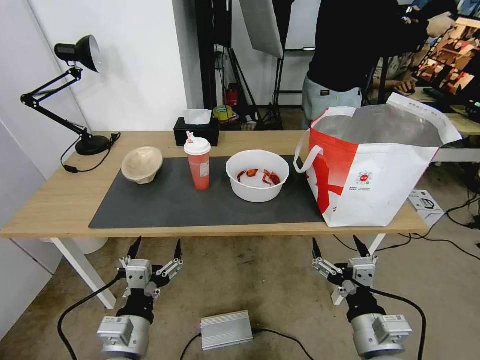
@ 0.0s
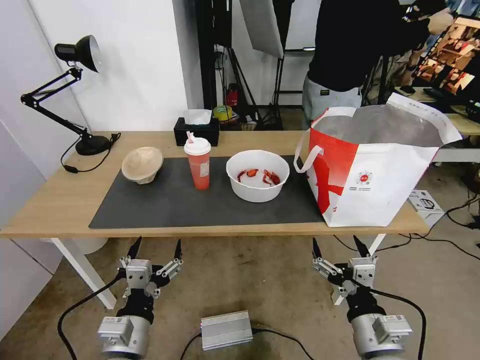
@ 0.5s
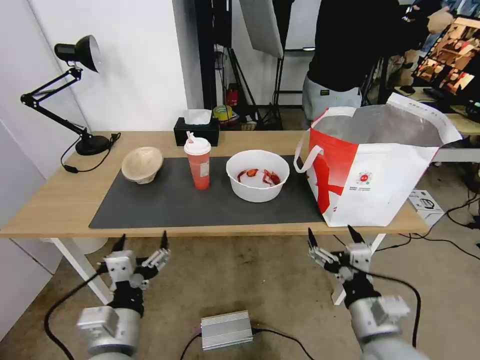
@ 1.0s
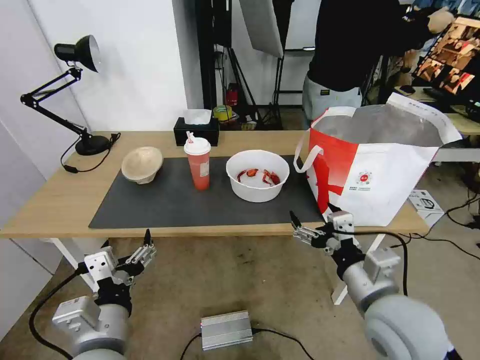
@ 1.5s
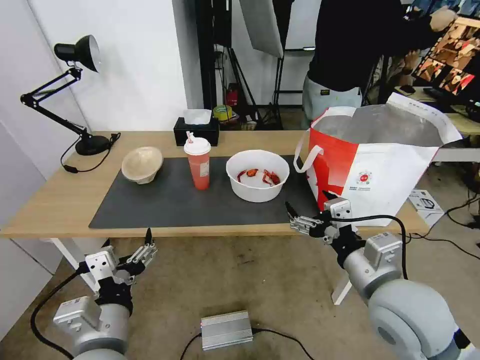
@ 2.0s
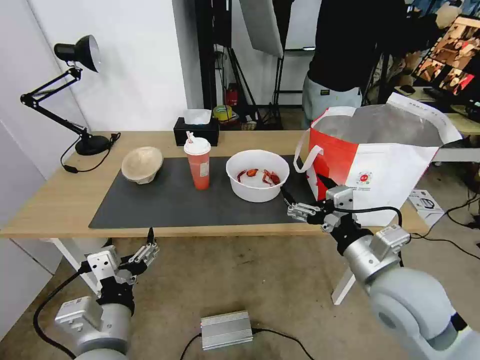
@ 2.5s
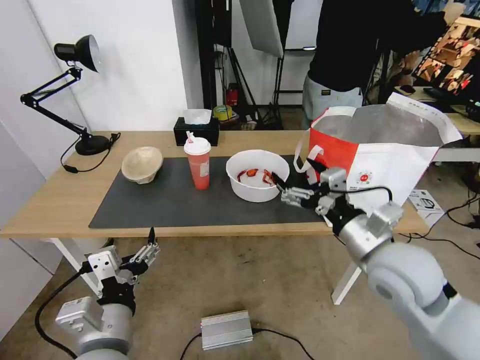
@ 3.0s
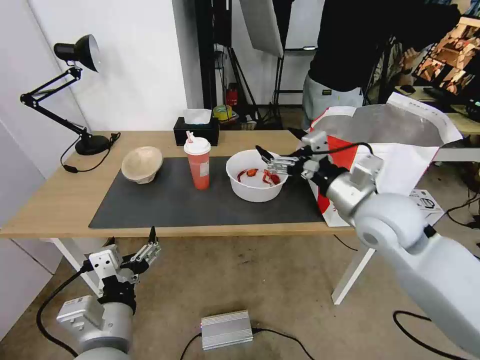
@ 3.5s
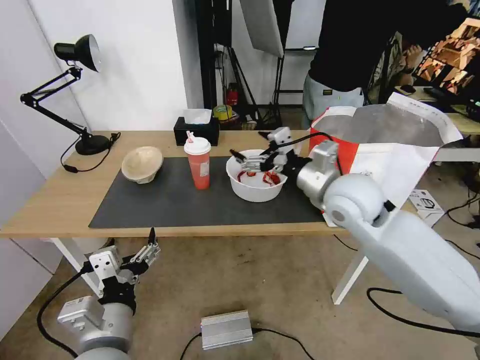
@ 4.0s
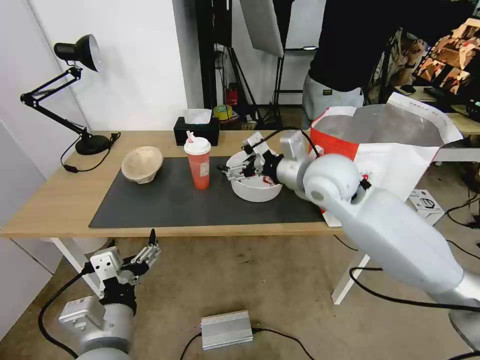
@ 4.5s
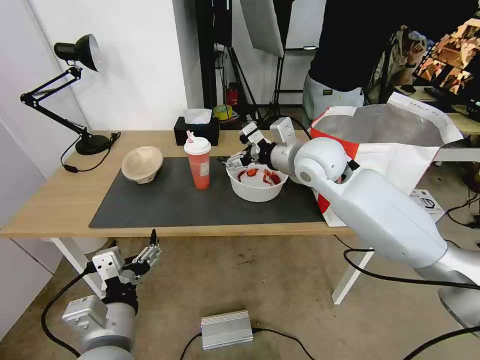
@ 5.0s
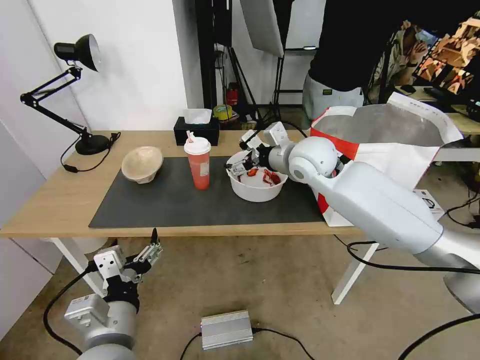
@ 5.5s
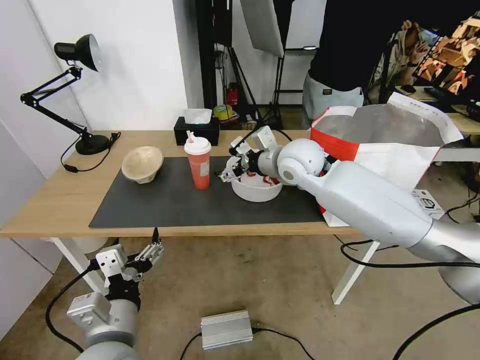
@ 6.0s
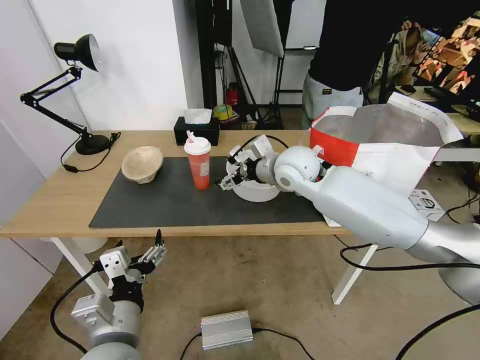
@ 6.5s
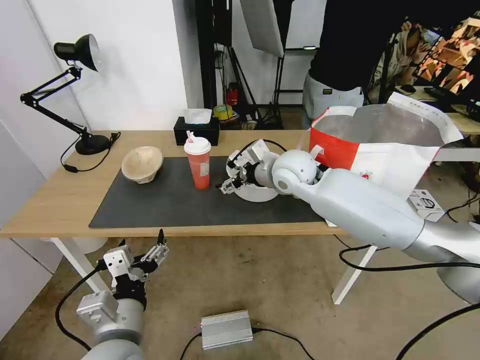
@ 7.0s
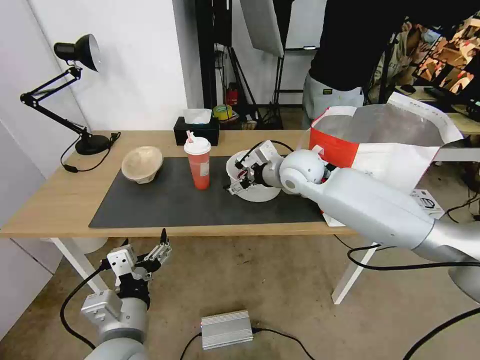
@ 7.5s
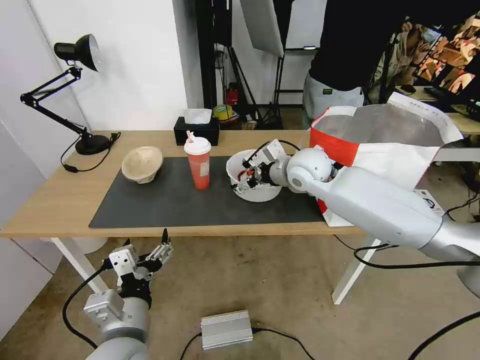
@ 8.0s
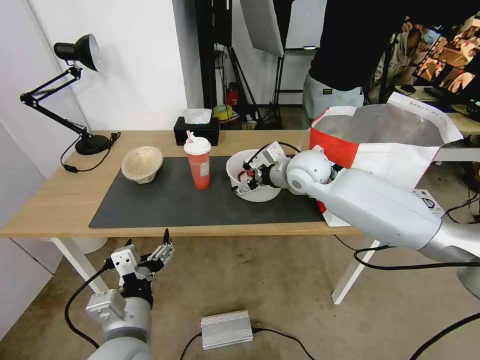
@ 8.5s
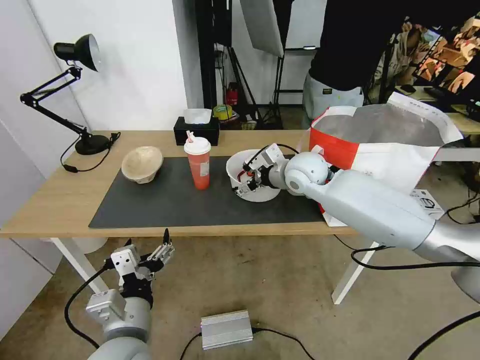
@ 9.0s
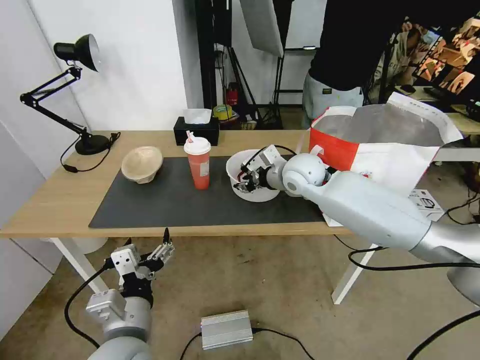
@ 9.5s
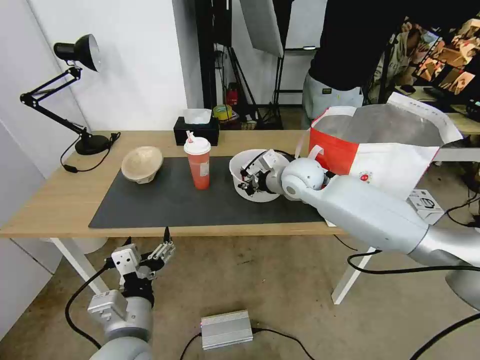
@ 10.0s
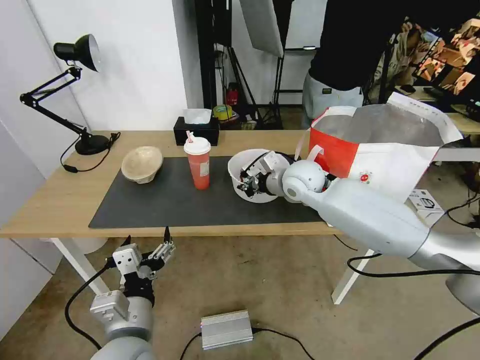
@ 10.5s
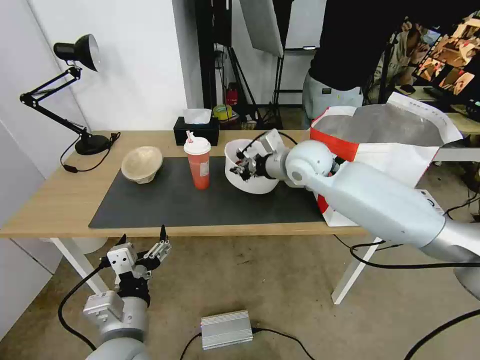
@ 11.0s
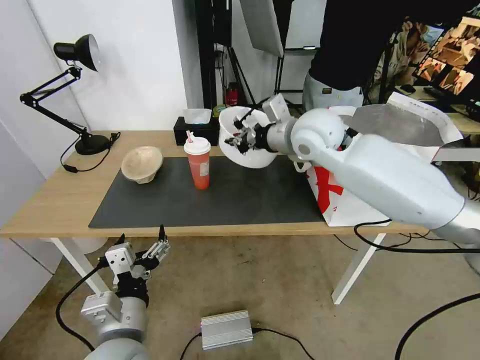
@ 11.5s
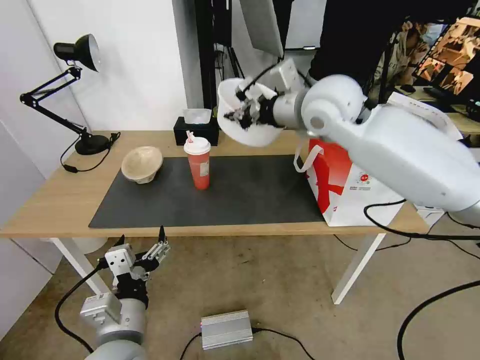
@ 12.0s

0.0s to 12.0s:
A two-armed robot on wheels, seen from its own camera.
Task of the whole recording: Pick up the trash from the table and place it into the takeout bag.
2.0s to 4.0s: The right gripper travels forward by about 20 cm.
4.0s to 6.0s: The right gripper is displaced forward and to the left by approximately 15 cm.
6.0s to 8.0s: There are only small adjustments of the grippers.
8.0s to 10.0s: The right gripper closes its fingers.
10.0s to 12.0s: The right gripper heads upward, covering approximately 20 cm.

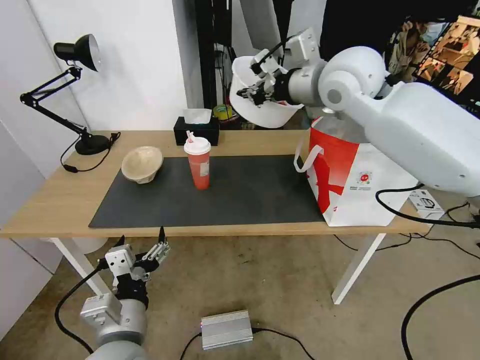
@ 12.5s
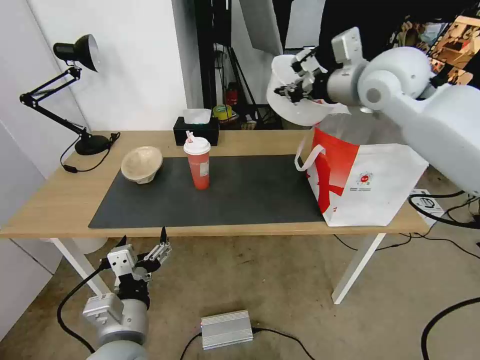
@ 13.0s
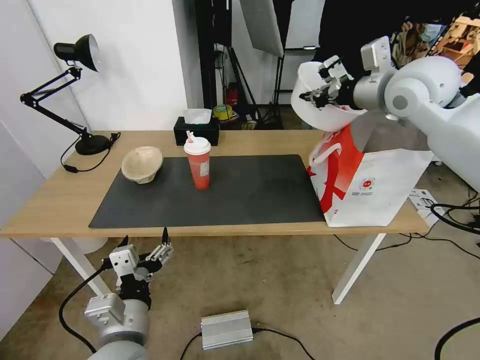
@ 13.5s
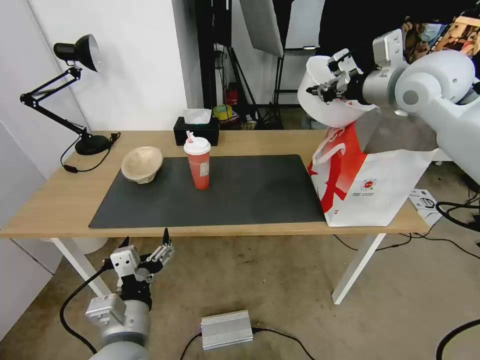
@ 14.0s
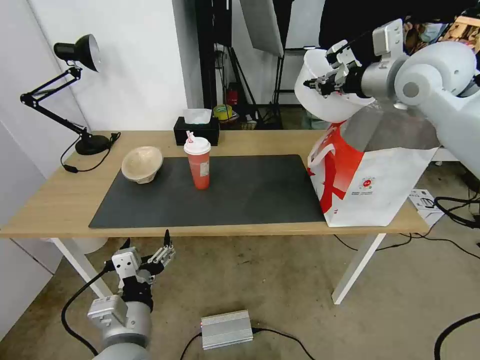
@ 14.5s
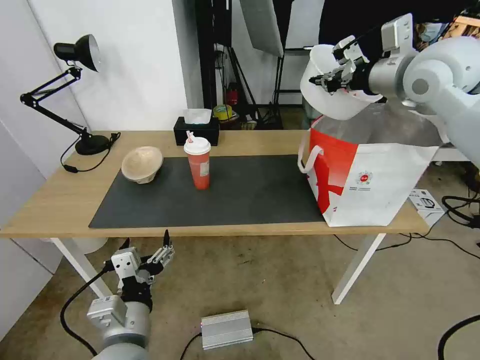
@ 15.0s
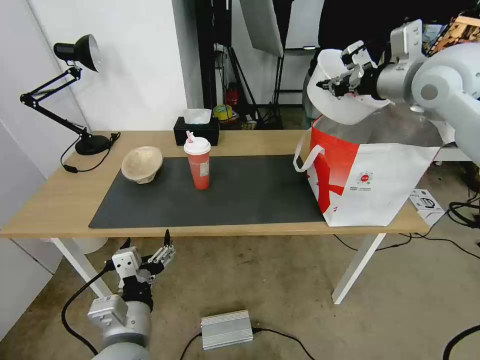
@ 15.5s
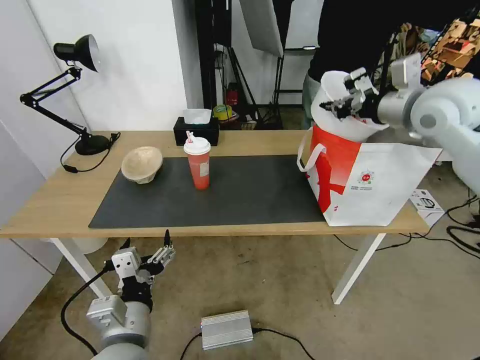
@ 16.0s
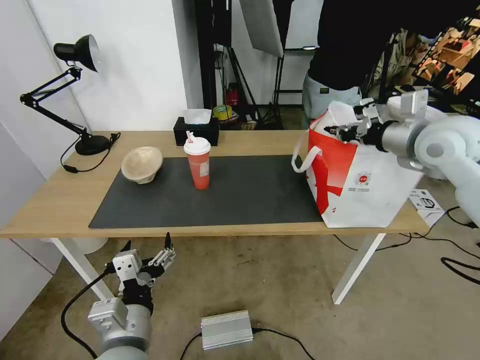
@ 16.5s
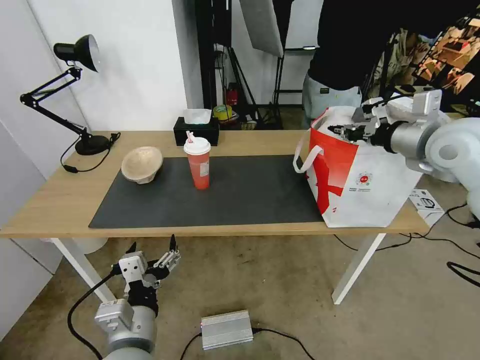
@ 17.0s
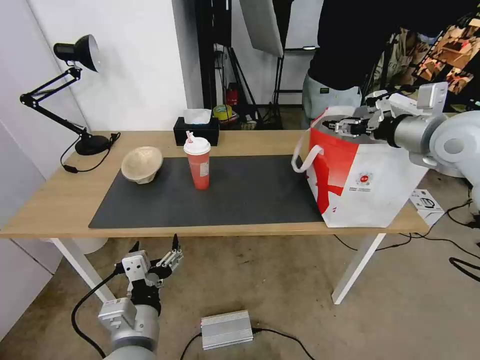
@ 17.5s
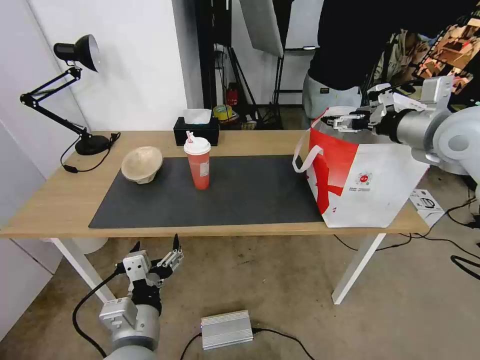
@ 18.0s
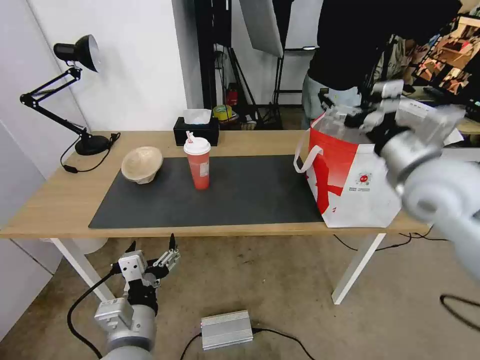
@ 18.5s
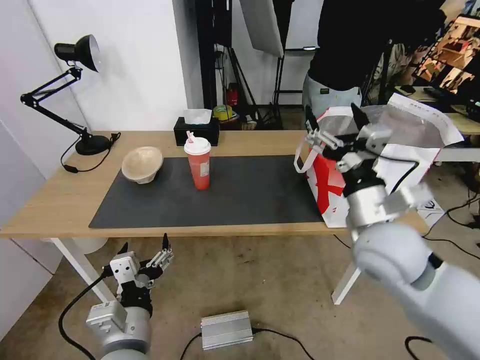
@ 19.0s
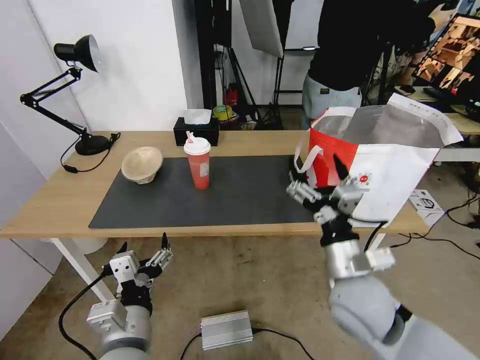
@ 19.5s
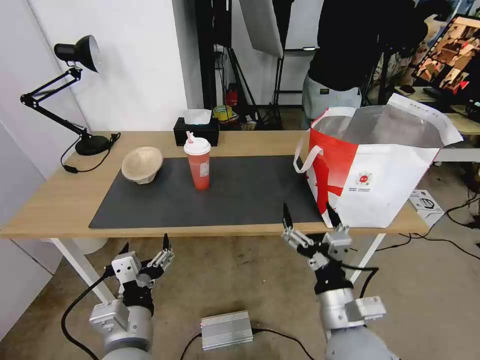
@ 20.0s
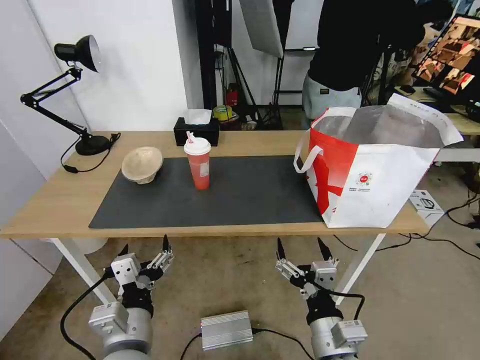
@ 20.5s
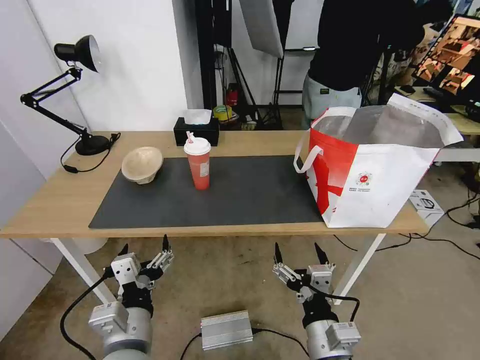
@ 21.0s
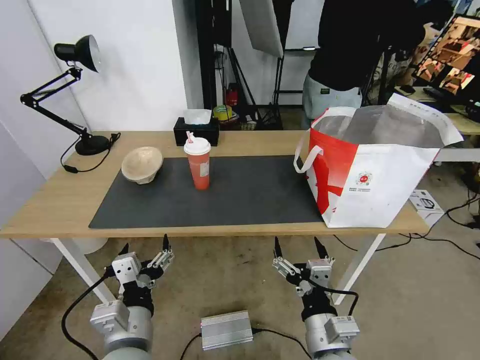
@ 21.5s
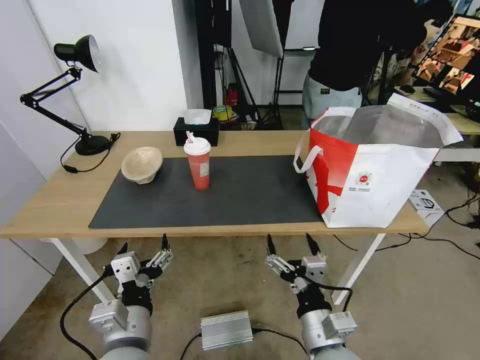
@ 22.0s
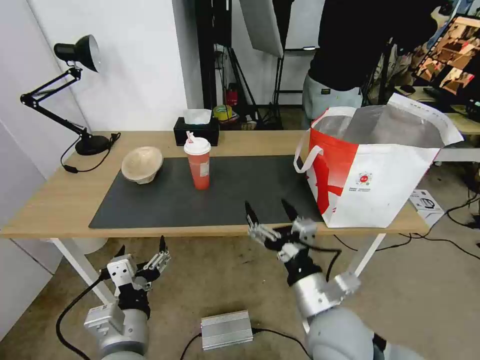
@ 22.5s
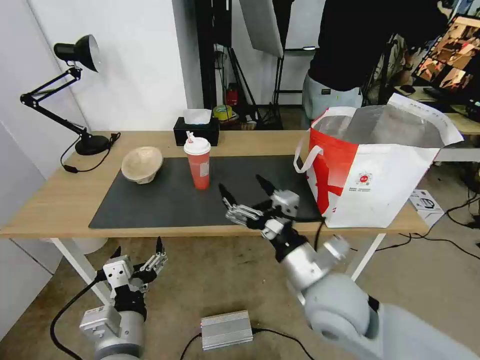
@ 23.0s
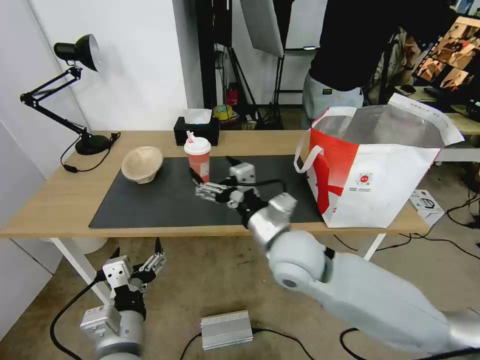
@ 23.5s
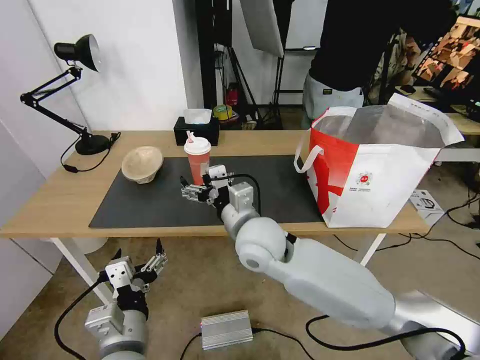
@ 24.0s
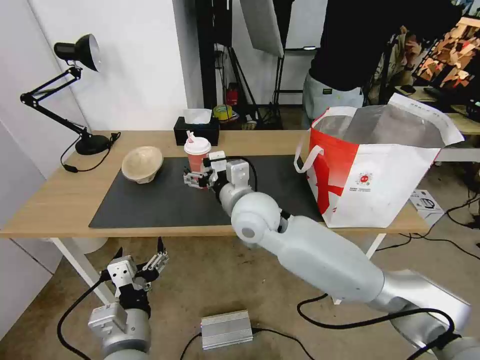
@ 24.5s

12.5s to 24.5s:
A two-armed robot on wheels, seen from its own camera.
Task of the whole recording: Pick up the trash from the table and place it into the takeout bag.
12.5s to 14.5s: The right gripper travels to the right by approximately 15 cm.
14.5s to 16.5s: The right gripper moves downward and to the right, roughly 10 cm.
16.5s to 18.5s: The right gripper travels backward and to the left by roughly 10 cm, and opens up.
18.5s to 20.5s: The right gripper heads downward, backward and to the left, covering about 35 cm.
20.5s to 22.5s: The right gripper is displaced forward by roughly 5 cm.
22.5s to 24.5s: The right gripper moves forward, to the left and upward, some 25 cm.

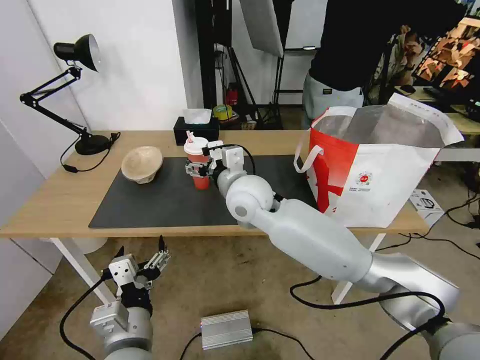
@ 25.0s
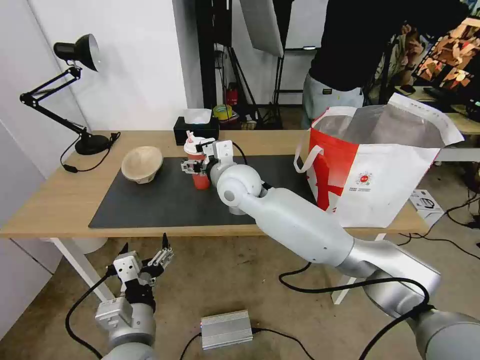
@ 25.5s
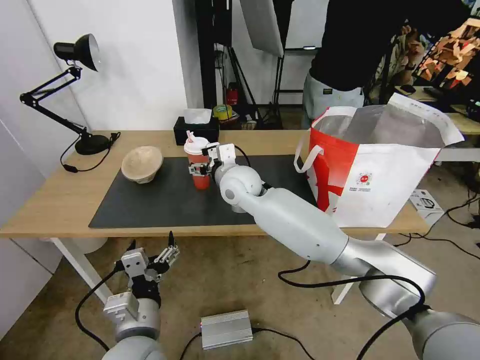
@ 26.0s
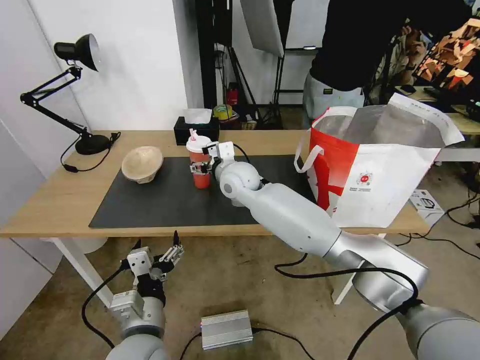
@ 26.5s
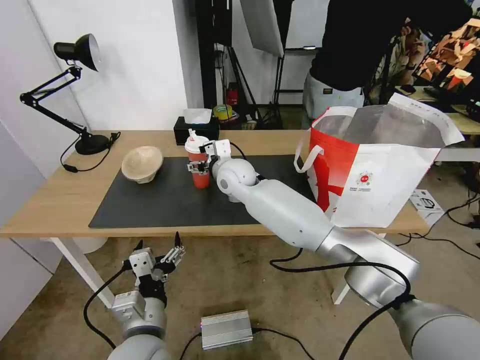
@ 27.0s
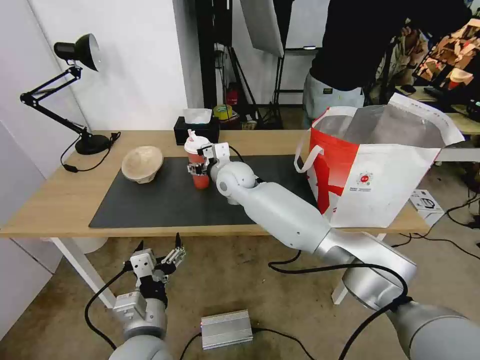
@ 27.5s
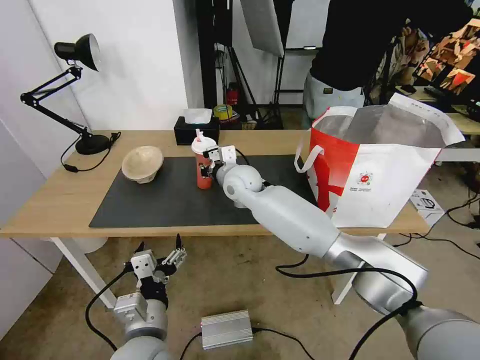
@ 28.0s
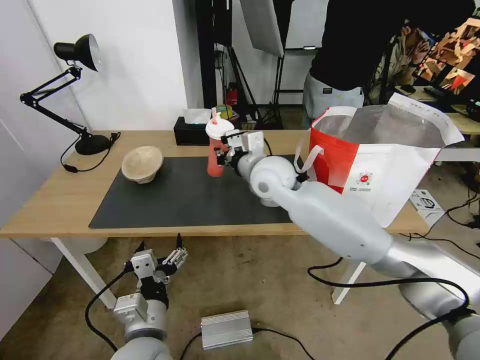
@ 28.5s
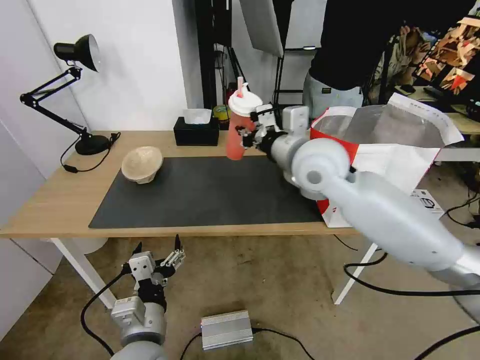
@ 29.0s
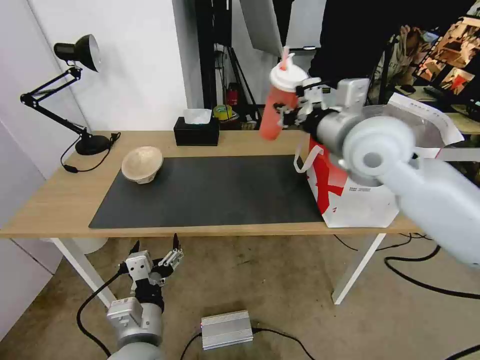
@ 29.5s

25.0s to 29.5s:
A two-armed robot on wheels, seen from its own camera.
Task of the whole recording: Pick up the trash from the table and place it into the takeout bag.
25.0s to 27.0s: The right gripper goes roughly 10 cm forward.
27.0s to 29.5s: The right gripper heads to the right, upward and backward, covering approximately 30 cm, and closes its fingers.
